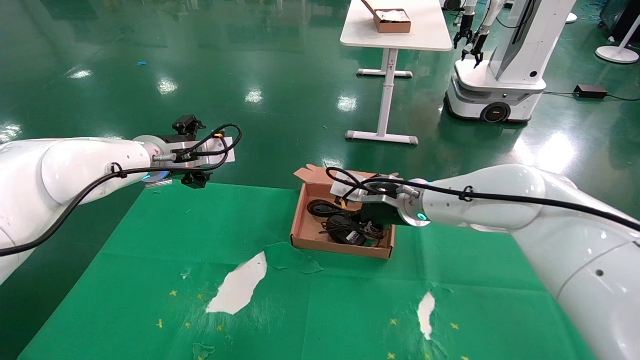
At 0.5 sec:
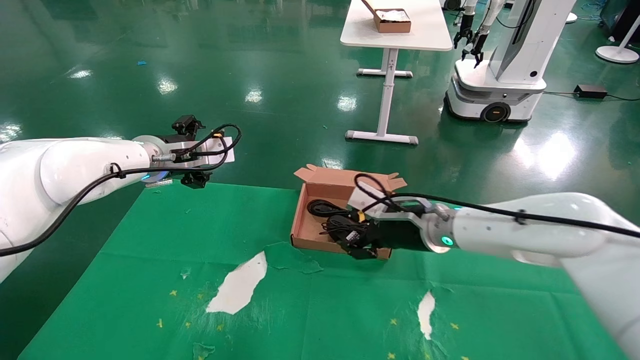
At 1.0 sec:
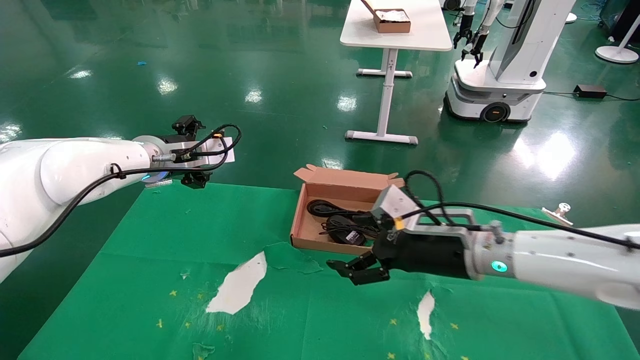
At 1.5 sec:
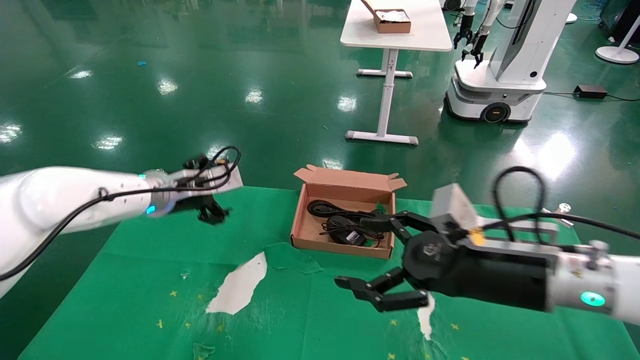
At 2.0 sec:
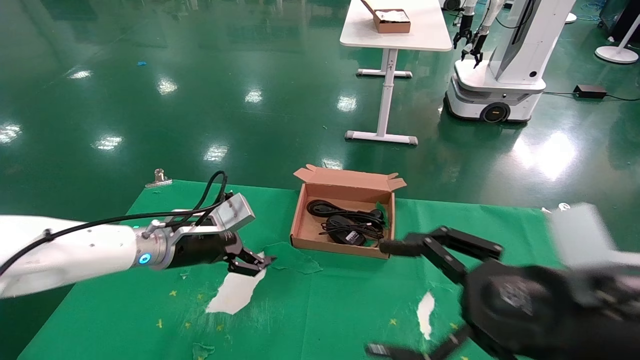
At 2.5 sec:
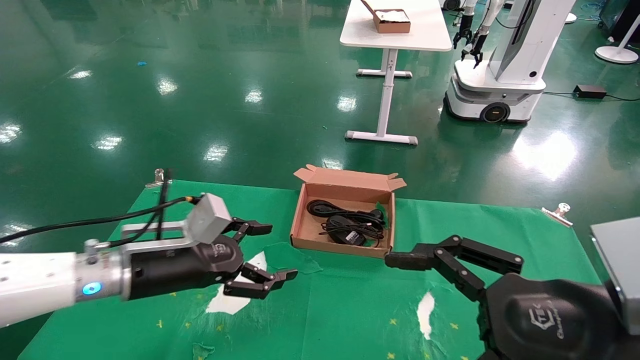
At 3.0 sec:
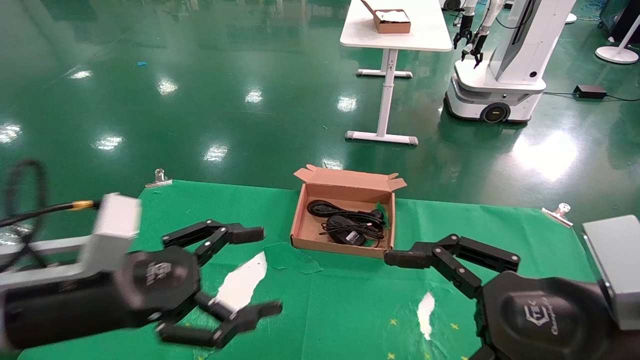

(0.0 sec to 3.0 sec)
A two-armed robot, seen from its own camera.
0.0 sec - 1.5 sec: The right gripper moves backward and to the right, some 20 cm, and opens up; the left gripper is displaced downward by approximately 5 cm.
1.5 sec - 3.0 sec: The left gripper is displaced backward by some 25 cm. Meanwhile the right gripper heads backward, covering some 10 cm.
